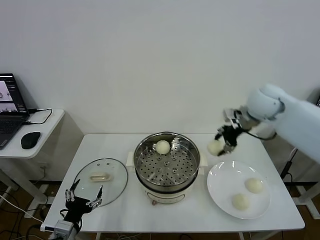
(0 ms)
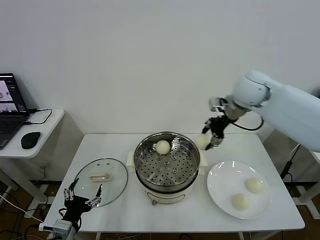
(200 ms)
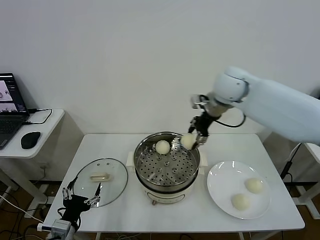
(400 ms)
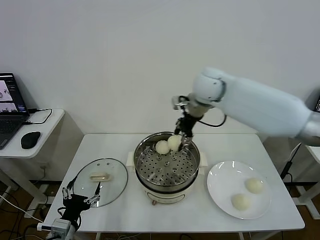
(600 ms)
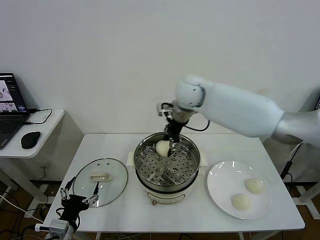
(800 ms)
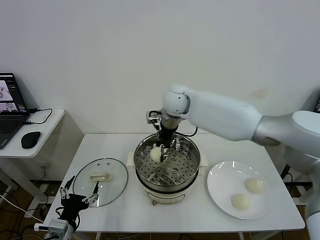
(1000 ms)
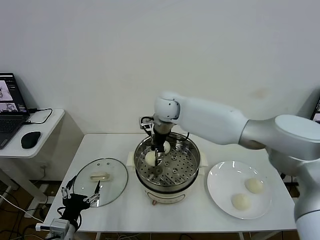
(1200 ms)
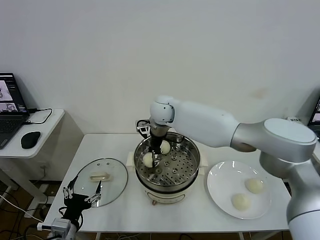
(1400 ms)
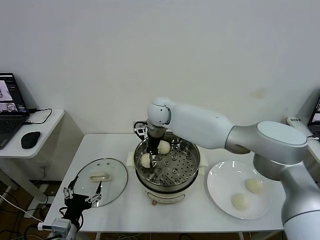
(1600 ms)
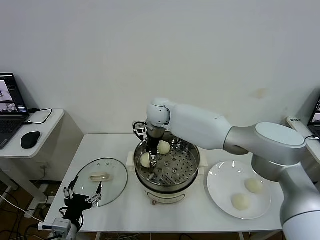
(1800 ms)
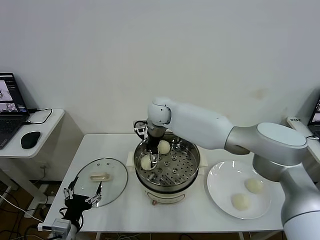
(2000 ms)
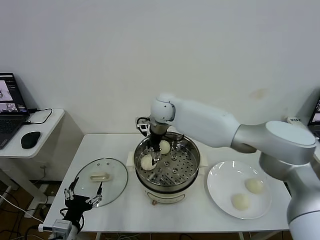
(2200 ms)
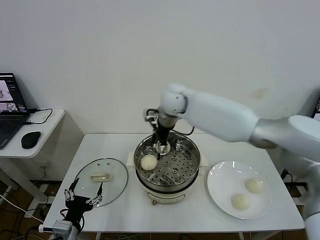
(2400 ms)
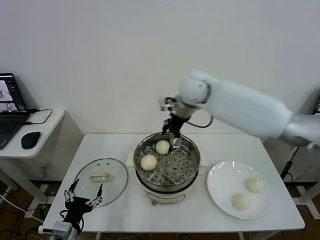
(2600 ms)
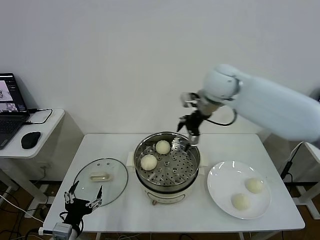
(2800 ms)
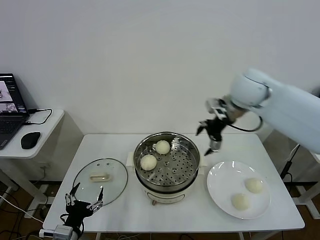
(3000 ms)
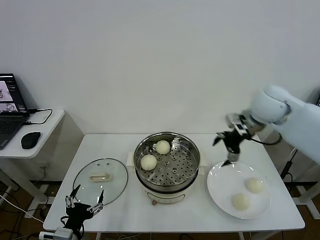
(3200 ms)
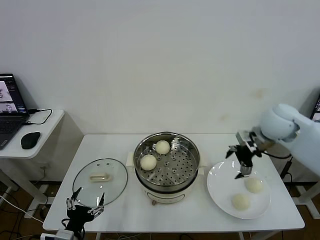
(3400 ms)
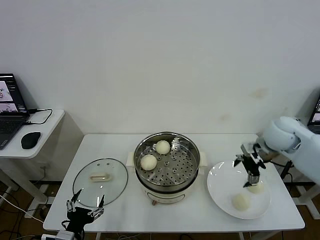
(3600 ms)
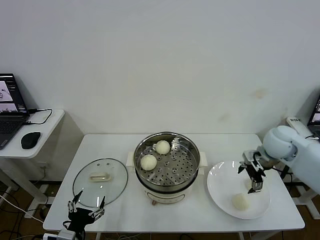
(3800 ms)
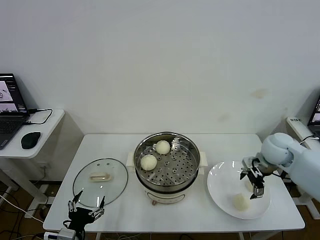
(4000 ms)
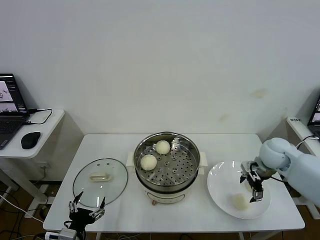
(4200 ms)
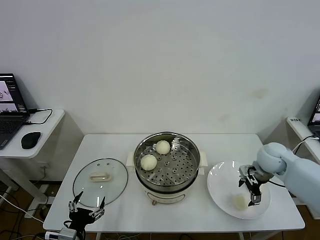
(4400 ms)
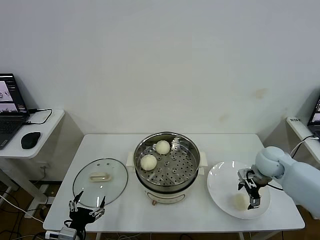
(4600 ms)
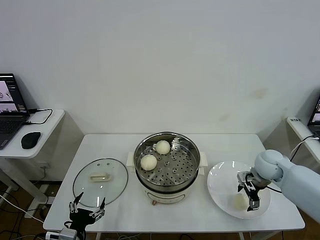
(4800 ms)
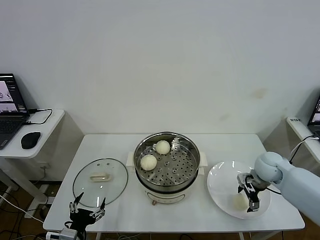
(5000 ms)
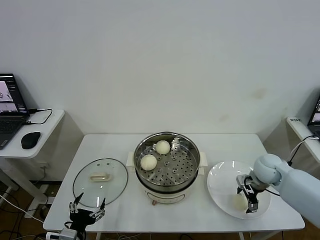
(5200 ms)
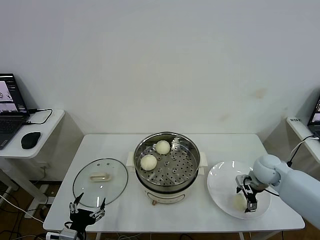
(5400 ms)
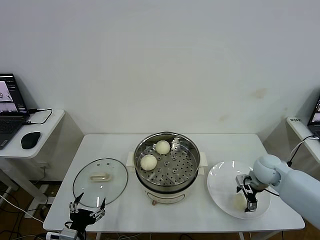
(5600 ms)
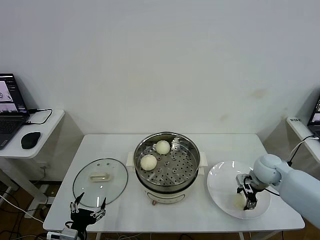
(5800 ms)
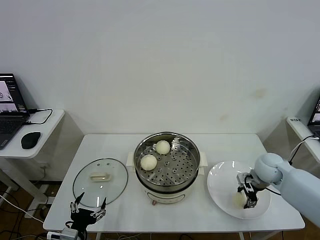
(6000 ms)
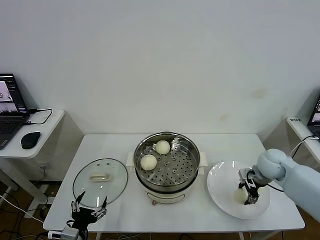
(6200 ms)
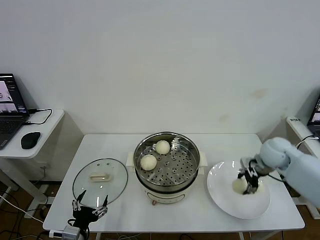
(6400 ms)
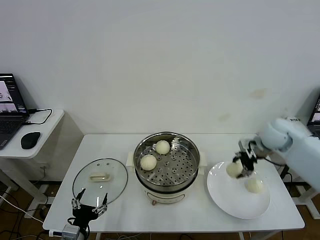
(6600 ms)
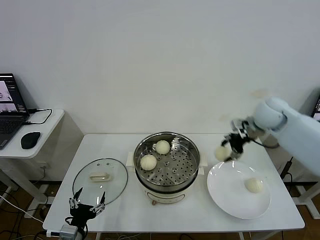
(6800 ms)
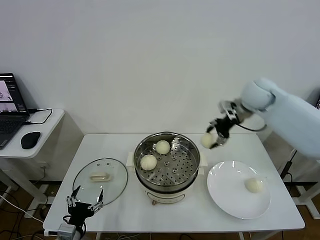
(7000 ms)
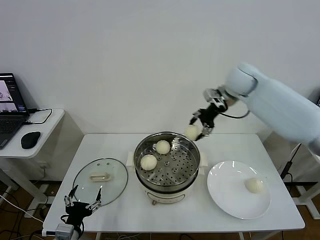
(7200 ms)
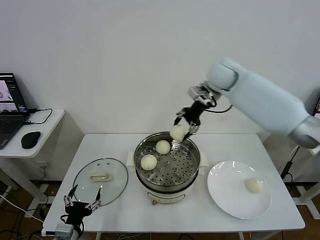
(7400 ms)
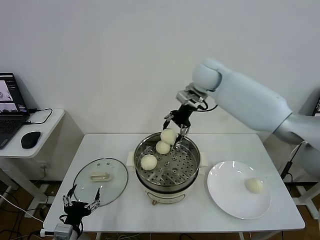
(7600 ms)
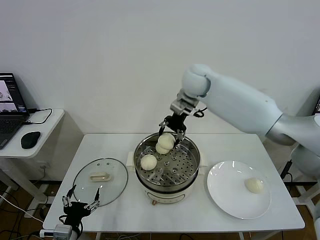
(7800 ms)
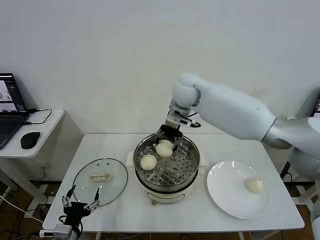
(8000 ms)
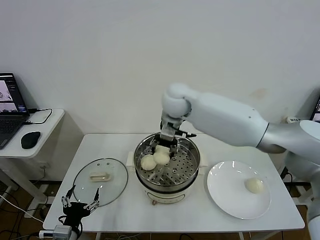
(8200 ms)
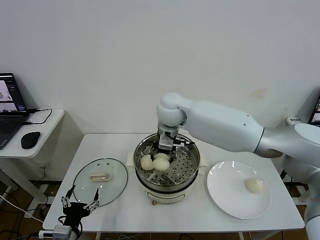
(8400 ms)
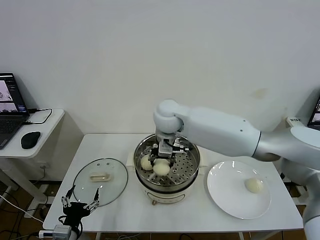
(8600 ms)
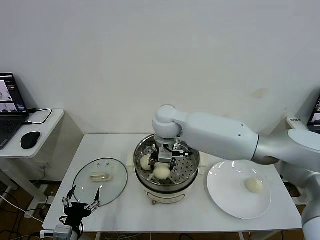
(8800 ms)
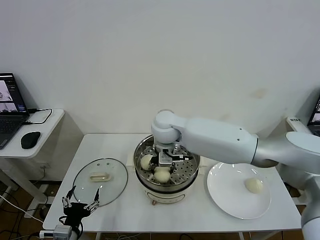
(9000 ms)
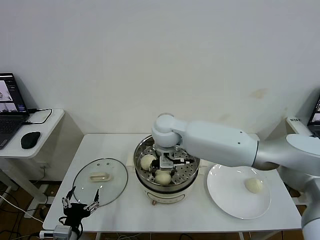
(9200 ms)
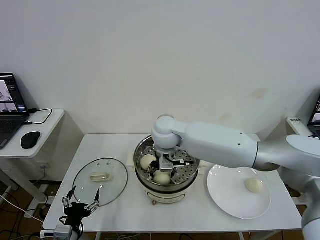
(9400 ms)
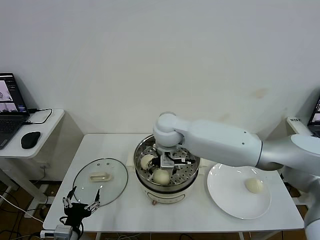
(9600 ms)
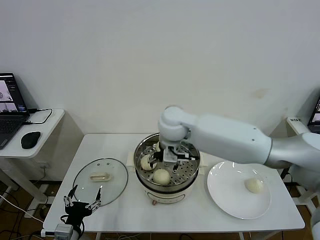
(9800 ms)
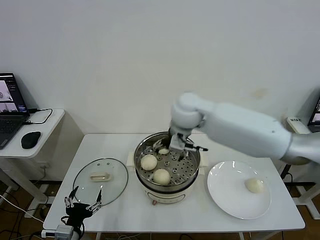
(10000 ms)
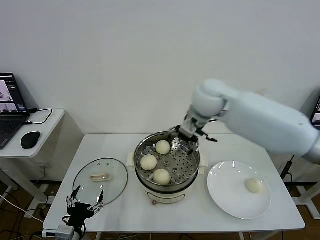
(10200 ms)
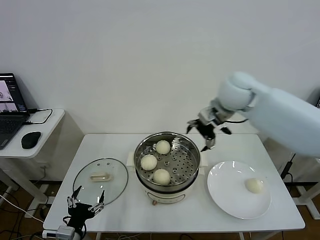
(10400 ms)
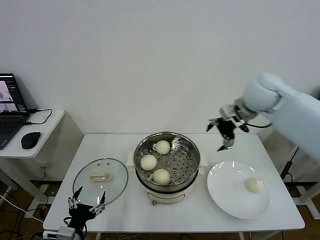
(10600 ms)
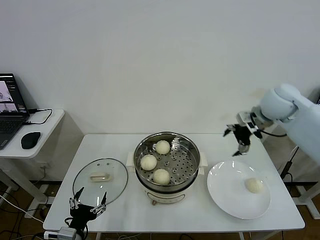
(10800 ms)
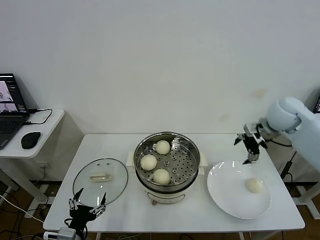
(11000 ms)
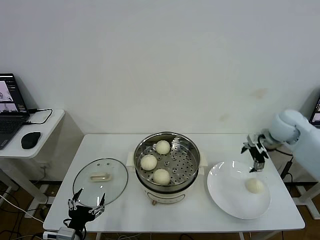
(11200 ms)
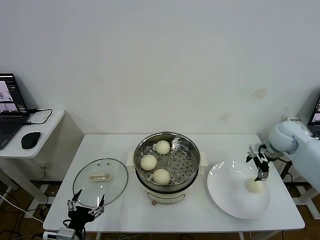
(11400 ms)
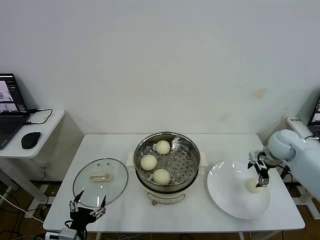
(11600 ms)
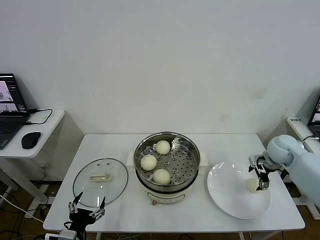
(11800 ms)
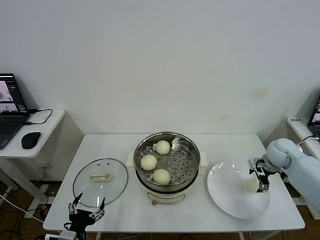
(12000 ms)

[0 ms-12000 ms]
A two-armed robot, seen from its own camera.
Step, 0 ms to 1800 ms: Place the baozi on the steamer with right gripper.
Step, 2000 ms to 6000 ms: Grasp the baozi in the plate with right gripper.
Step, 6200 ms to 9400 ms: Place the baozi on the steamer with right gripper.
0 ms to 1600 ms: The right gripper goes roughly 30 cm to the left.
1600 ms to 3000 ms: The right gripper shifts about 30 cm to the right and upward, and opens up.
3000 ms to 4400 ms: The right gripper travels downward and to the right by some 25 cm.
4400 ms to 6000 ms: The right gripper closes.
6000 ms to 7600 ms: The right gripper moves upward, to the left and forward, some 40 cm.
7600 ms to 9000 ms: The right gripper moves to the left, backward and downward, some 20 cm.
9000 ms to 10400 ms: The right gripper heads to the right and upward, covering approximately 25 cm, and opens up.
10400 ms to 12000 ms: The right gripper moves downward and to the right, some 30 cm.

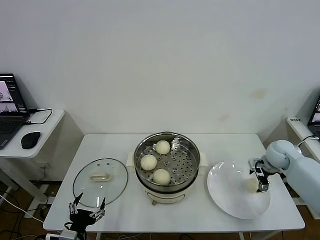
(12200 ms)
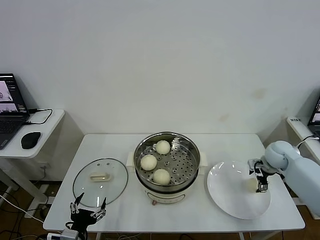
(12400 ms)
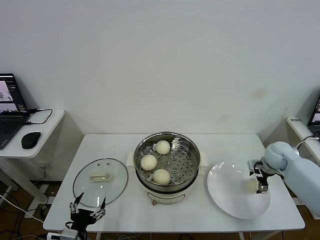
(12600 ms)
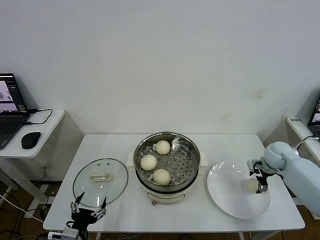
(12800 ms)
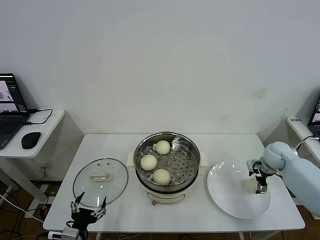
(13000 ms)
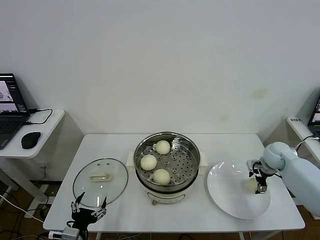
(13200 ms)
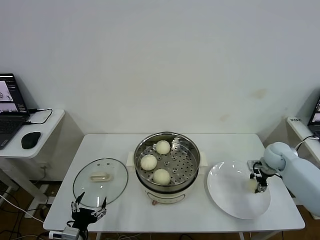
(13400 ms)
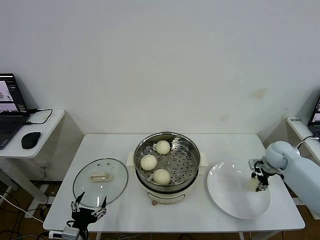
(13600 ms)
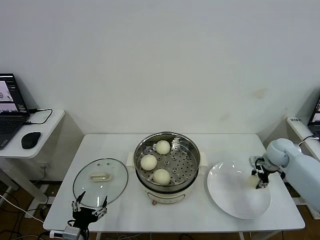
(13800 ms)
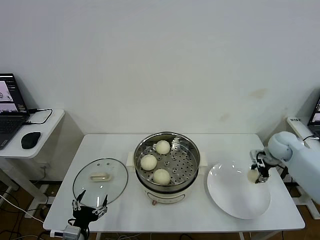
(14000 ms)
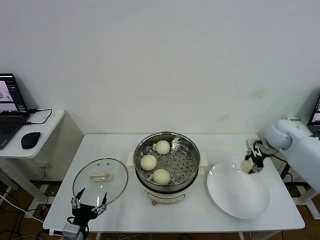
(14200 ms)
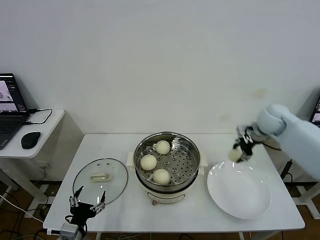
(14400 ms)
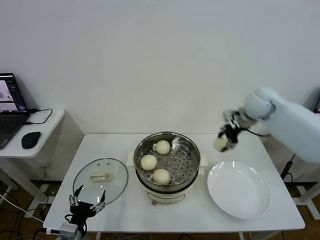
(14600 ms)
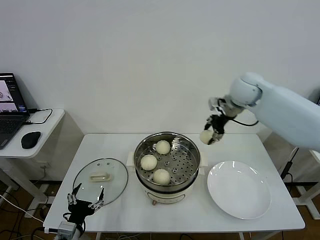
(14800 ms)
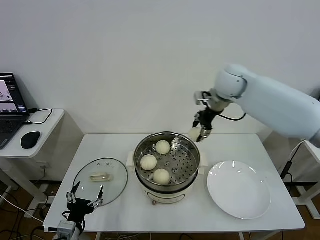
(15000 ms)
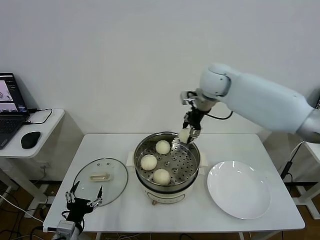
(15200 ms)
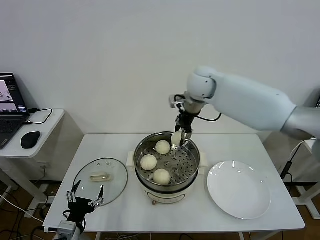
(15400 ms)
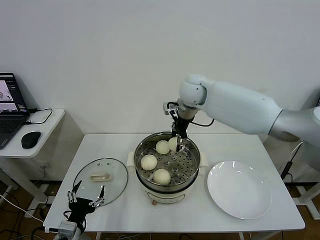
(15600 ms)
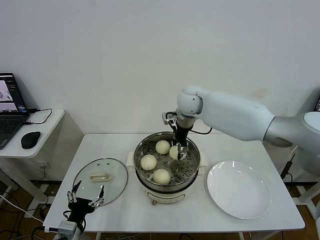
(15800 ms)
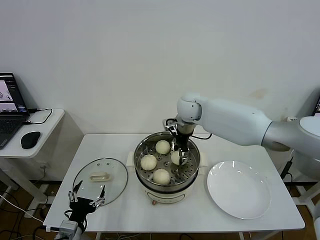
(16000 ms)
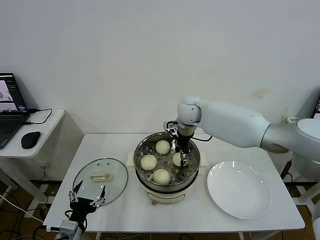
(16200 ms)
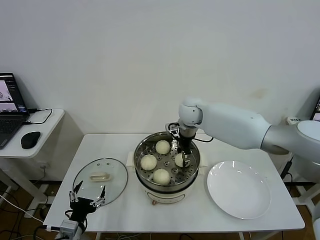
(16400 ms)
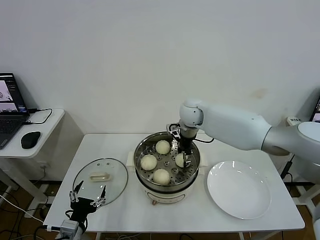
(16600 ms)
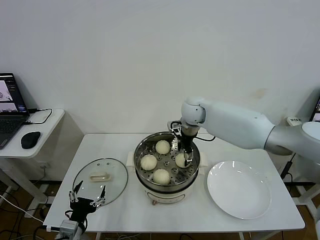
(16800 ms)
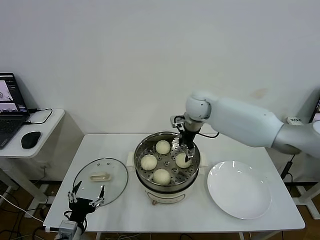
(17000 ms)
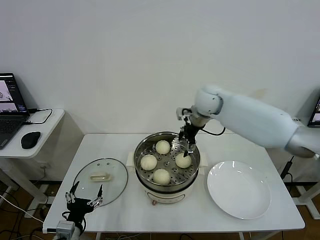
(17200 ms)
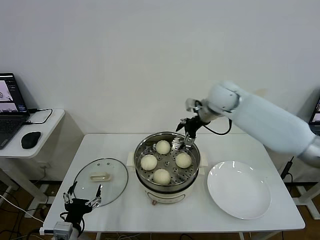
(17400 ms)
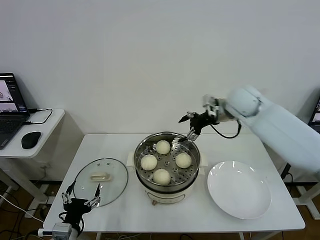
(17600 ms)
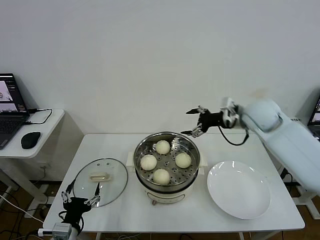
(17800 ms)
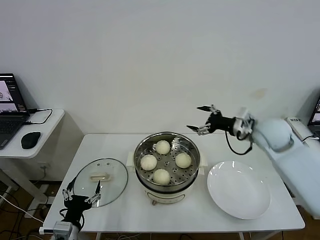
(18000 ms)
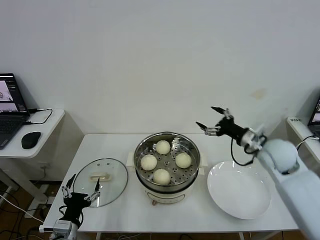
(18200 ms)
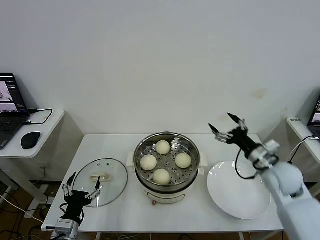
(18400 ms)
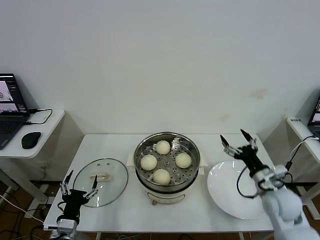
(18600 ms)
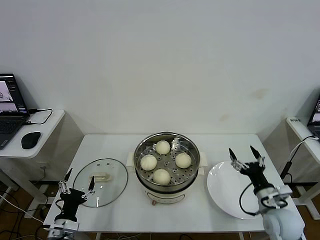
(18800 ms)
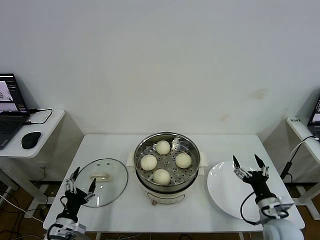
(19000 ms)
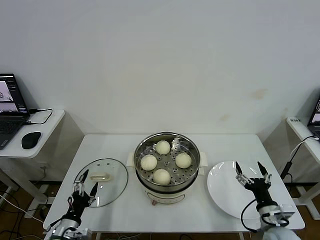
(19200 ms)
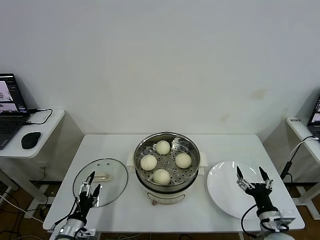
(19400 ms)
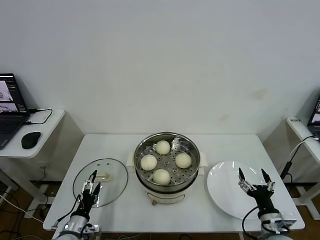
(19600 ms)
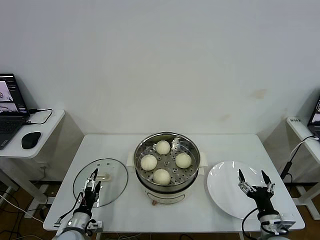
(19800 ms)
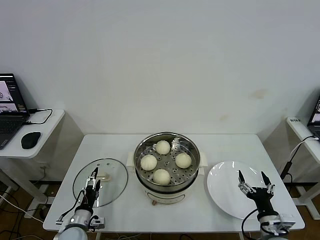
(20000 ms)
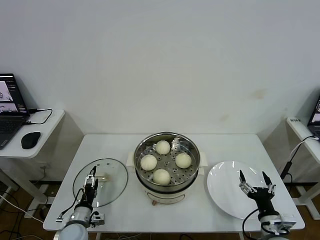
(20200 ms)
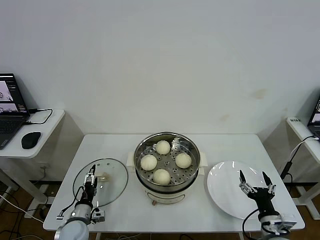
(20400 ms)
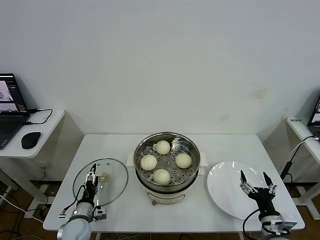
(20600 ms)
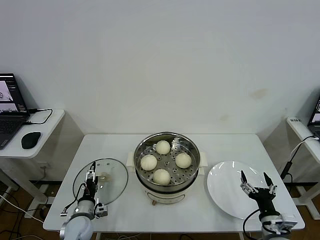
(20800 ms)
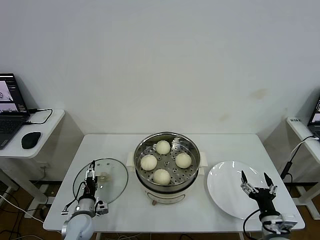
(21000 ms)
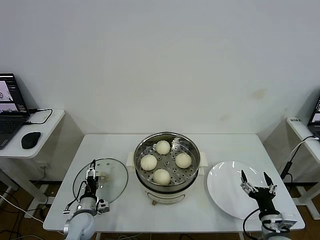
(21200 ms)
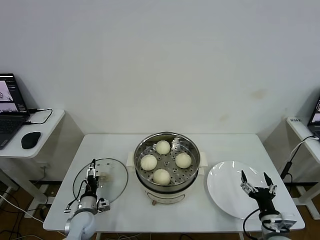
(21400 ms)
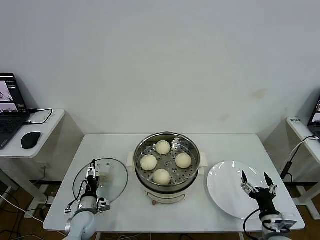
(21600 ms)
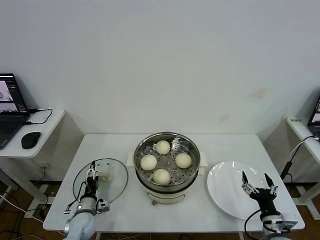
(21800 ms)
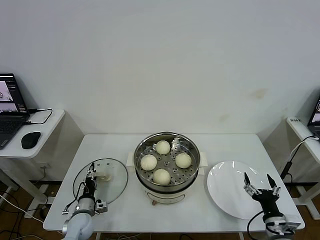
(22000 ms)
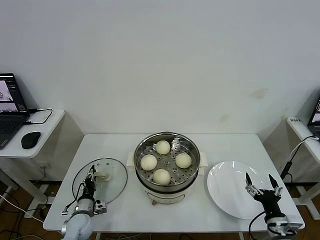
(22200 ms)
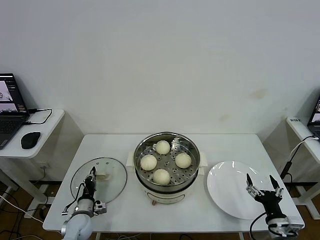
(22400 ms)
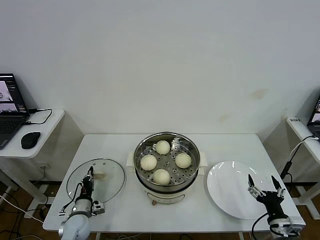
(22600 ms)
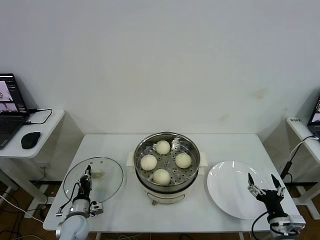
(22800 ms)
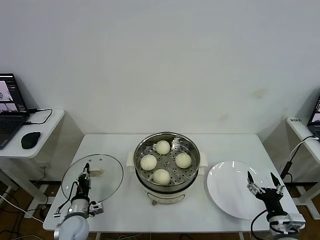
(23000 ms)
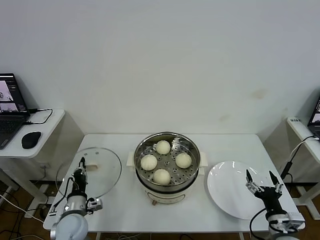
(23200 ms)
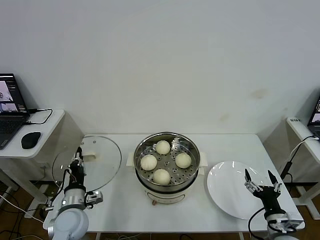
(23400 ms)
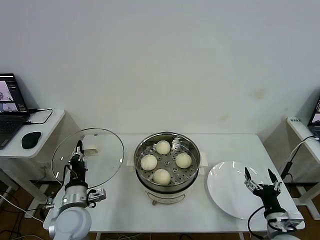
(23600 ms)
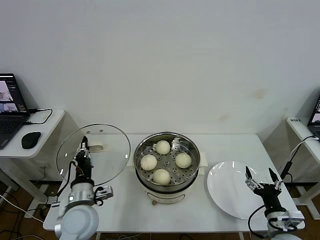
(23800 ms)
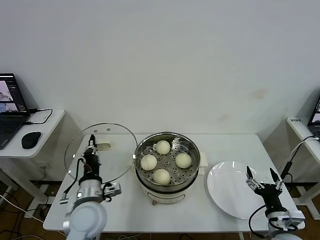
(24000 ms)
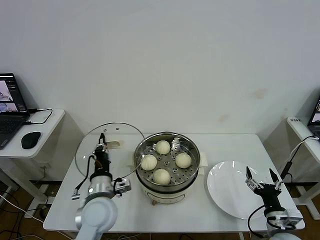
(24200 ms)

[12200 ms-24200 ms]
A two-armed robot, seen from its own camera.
Step, 13800 ms to 16800 ms: Place the baozi on the steamer with right gripper.
Step, 17000 ms to 22600 ms: Grasp the pot lid with left gripper.
12200 ms to 13800 ms: The right gripper closes.
13800 ms to 15200 ms: The right gripper is displaced to the left and upward by approximately 35 cm.
15200 ms to 16600 ms: The right gripper travels downward by roughly 10 cm.
16600 ms to 18200 ms: The right gripper moves to the right and backward, approximately 30 cm, and opens its fingers.
18200 ms to 19800 ms: The left gripper moves downward and forward, about 10 cm, while the right gripper heads backward and downward, covering roughly 30 cm.
19800 ms to 21200 ms: The left gripper heads forward, covering about 5 cm.
21200 ms to 22600 ms: The left gripper closes.
22600 ms to 24200 ms: The left gripper is displaced upward and to the right by approximately 25 cm.
